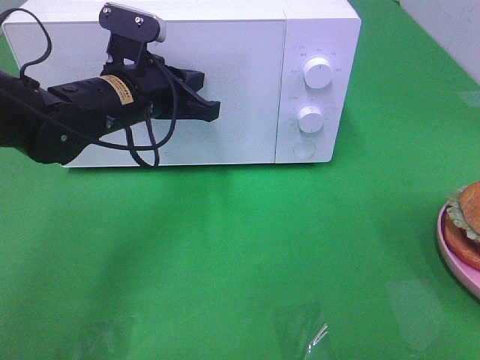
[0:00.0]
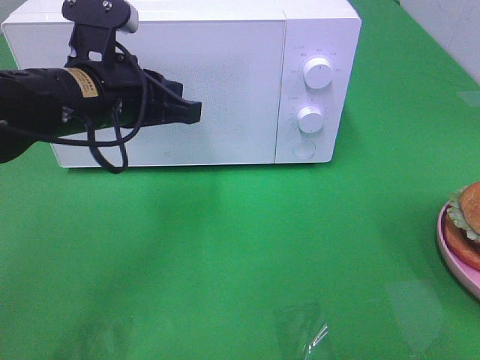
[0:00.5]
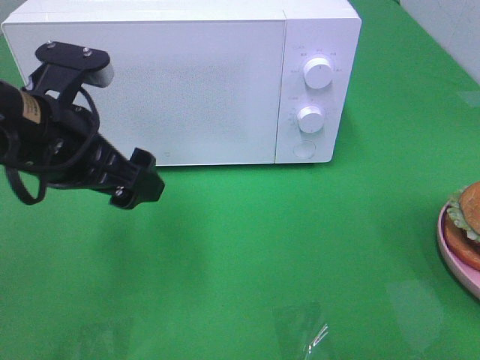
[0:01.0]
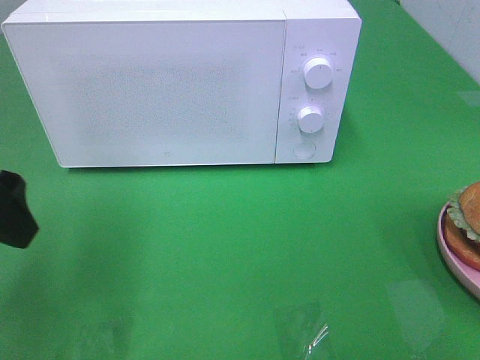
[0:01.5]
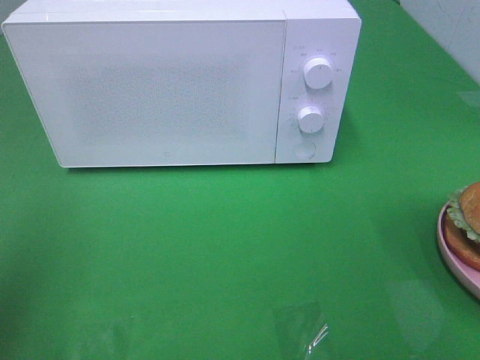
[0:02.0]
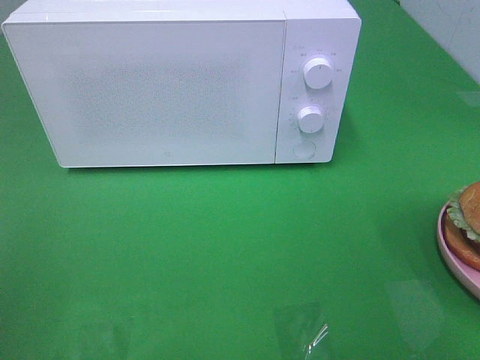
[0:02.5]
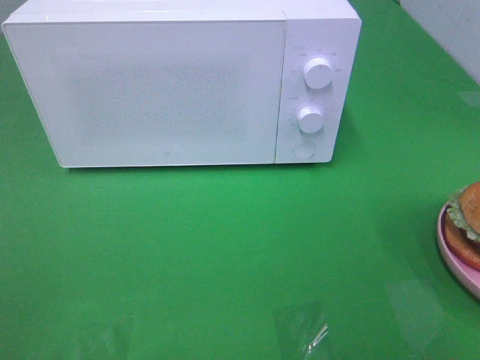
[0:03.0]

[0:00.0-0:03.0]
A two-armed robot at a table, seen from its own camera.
Task of the whole recording: Heat the burger.
0:00.0 to 0:01.5: The left gripper is displaced backward, to the left and upward by approximately 20 cm, and opens up.
0:01.5 to 0:03.0: The left gripper shifts about 20 cm backward and to the left.

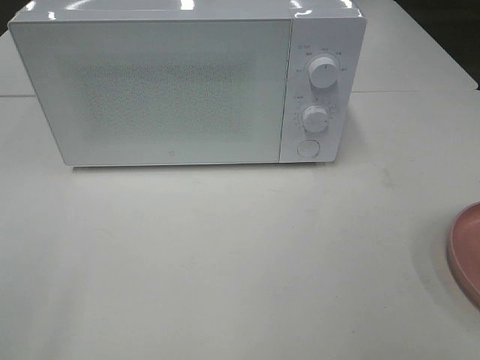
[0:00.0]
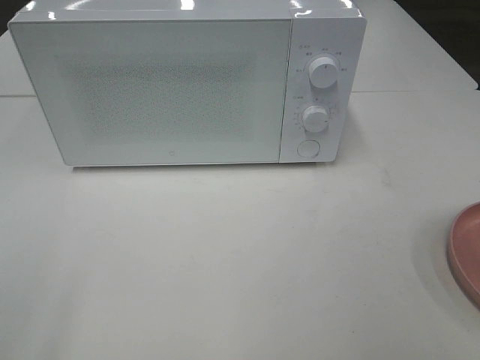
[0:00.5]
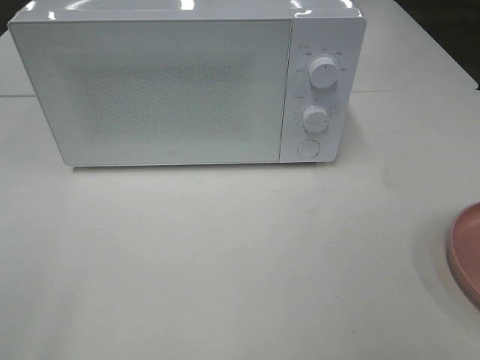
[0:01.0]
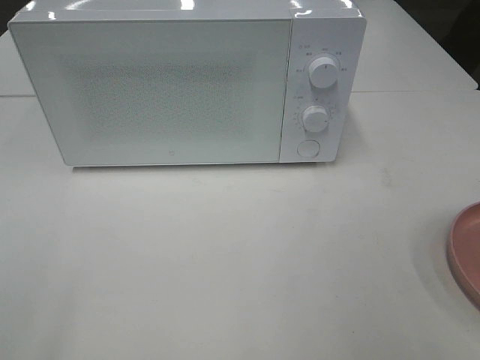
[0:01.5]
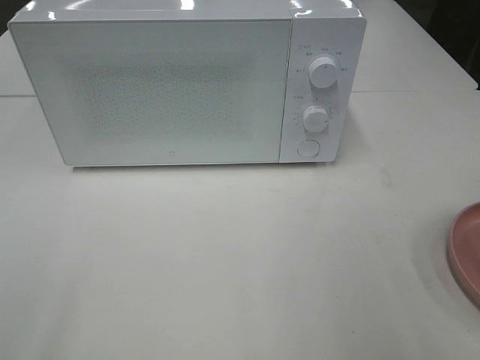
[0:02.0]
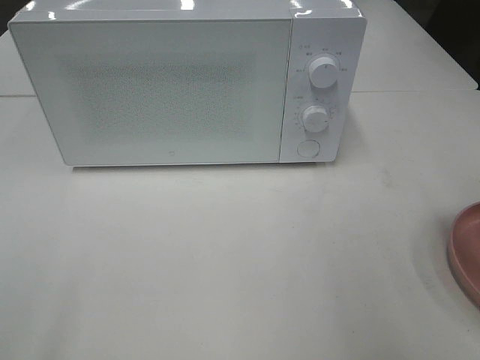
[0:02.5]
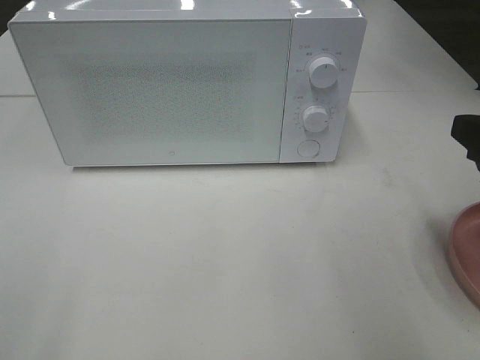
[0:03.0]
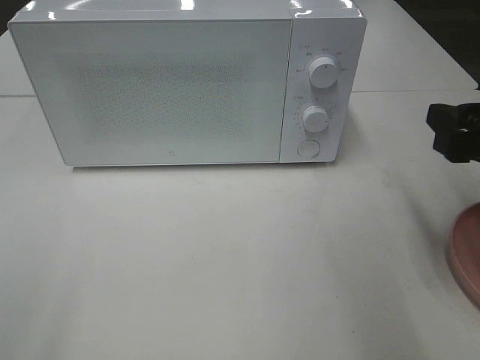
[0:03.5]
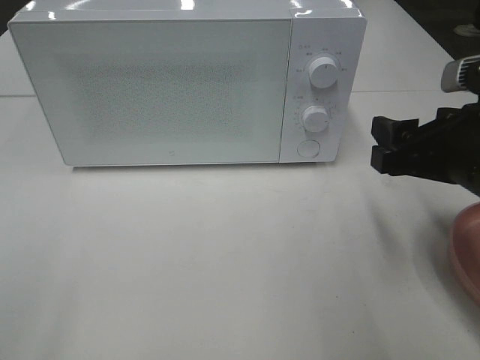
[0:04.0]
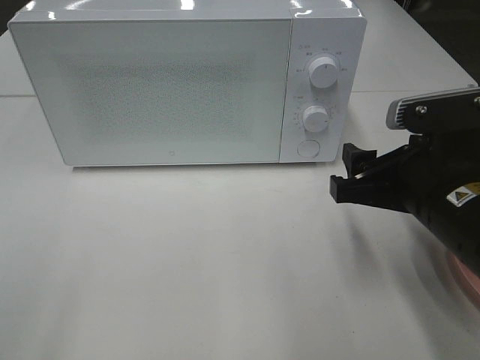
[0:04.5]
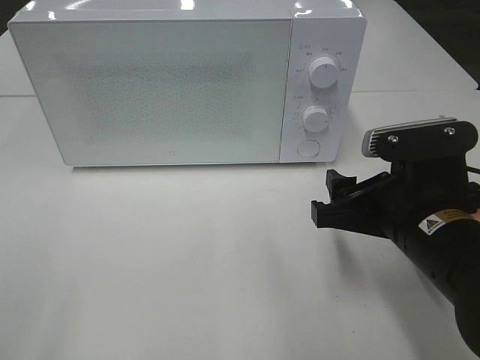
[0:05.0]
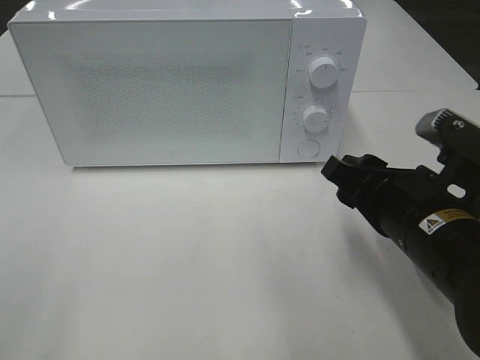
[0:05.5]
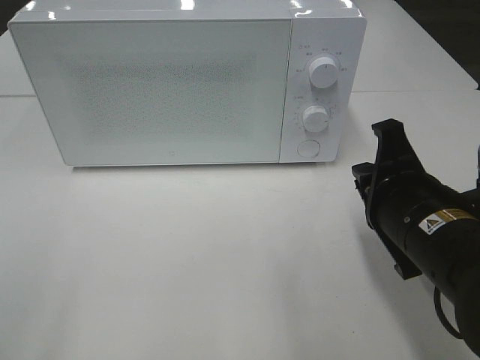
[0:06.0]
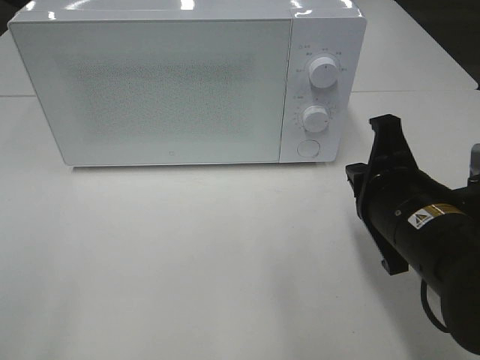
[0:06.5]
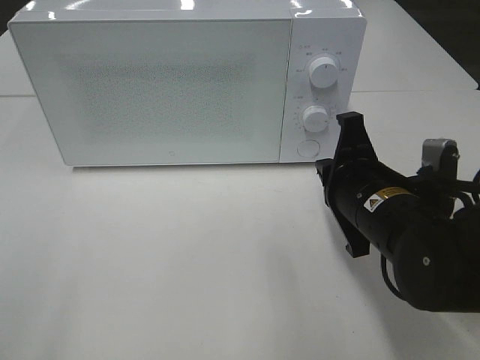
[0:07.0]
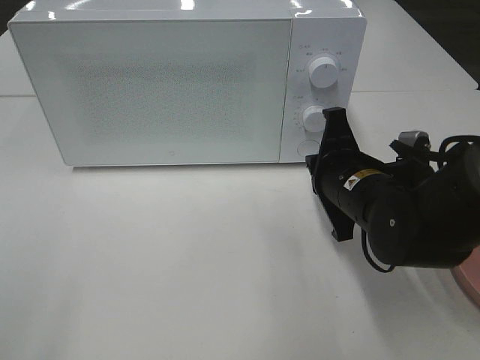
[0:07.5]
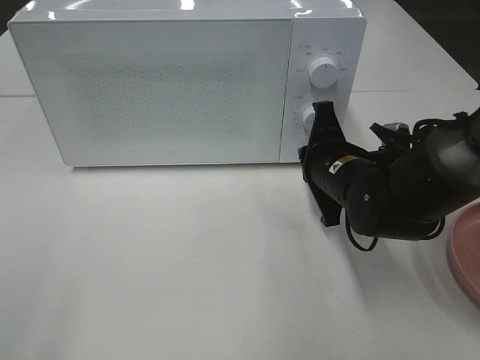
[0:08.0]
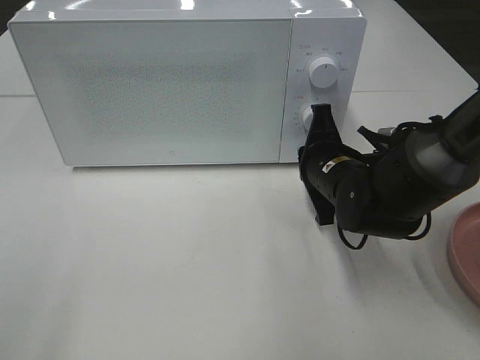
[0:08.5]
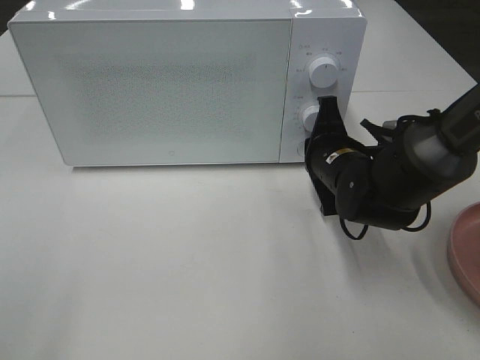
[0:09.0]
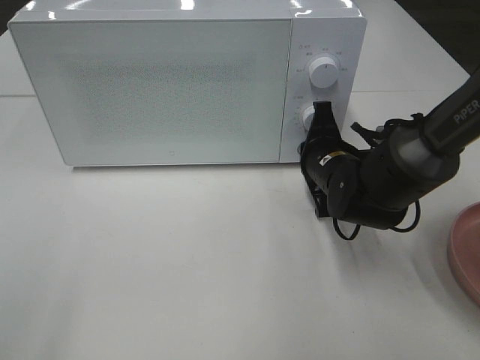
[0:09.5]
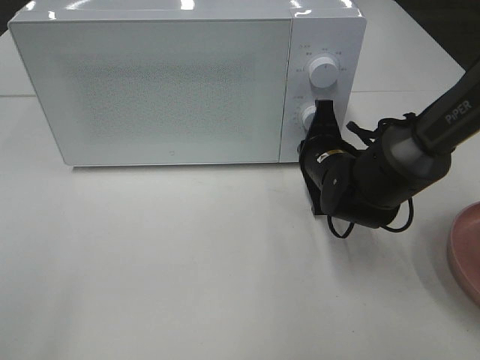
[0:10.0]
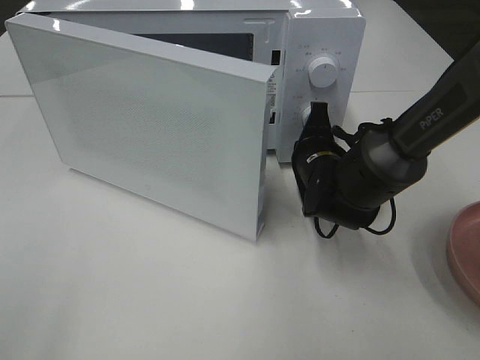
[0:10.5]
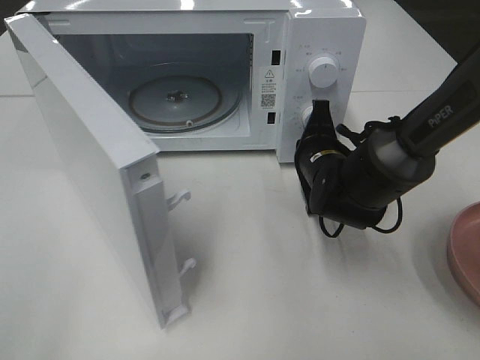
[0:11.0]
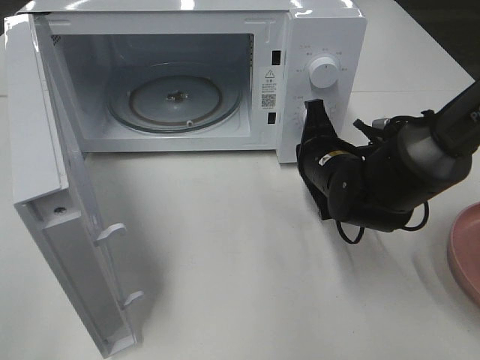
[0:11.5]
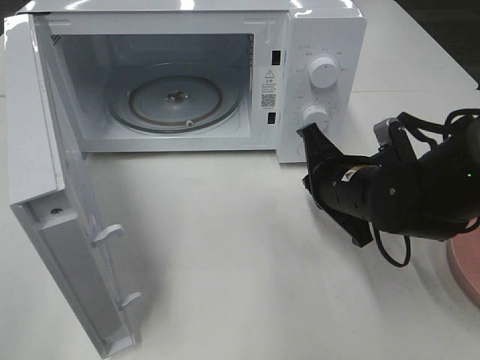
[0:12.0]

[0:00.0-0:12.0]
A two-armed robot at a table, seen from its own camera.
Task of the whole recording: Heat the burger.
Step, 0:00.0 to 0:11.0: Right hand: press the switch.
0:02.0 to 0:04.0: The right gripper shifts roughly 15 cm downward, forward and to the left.
0:04.0 to 0:06.0: The right gripper travels to the left by roughly 5 cm, and closes.
0:06.0 to 0:08.0: The right gripper travels forward and downward by about 15 cm.
0:08.0 to 0:10.0: The grippers move only a little.
0:10.0 to 0:12.0: The right gripper is displaced backward by about 5 cm.

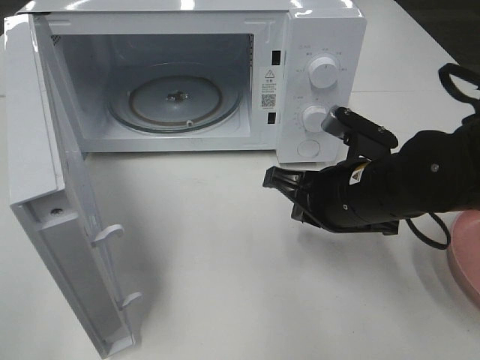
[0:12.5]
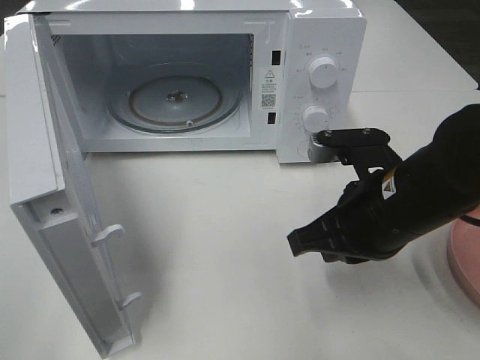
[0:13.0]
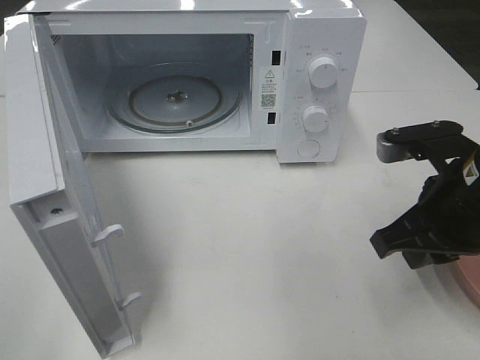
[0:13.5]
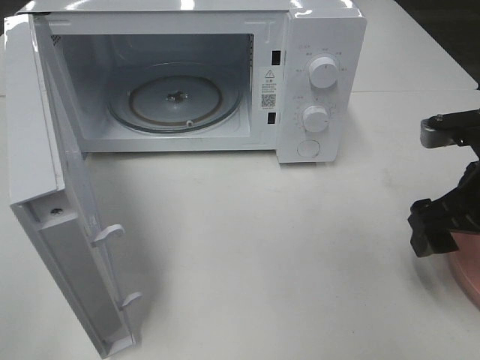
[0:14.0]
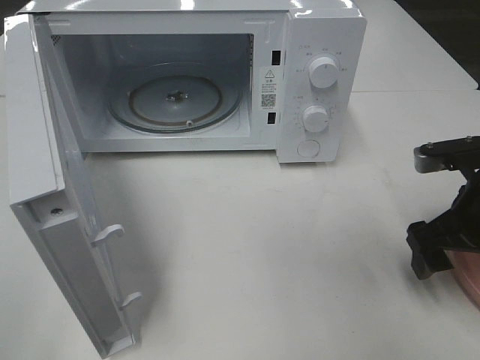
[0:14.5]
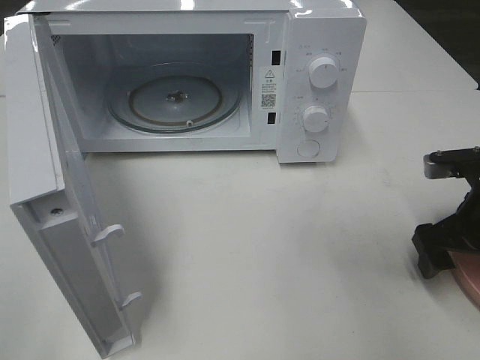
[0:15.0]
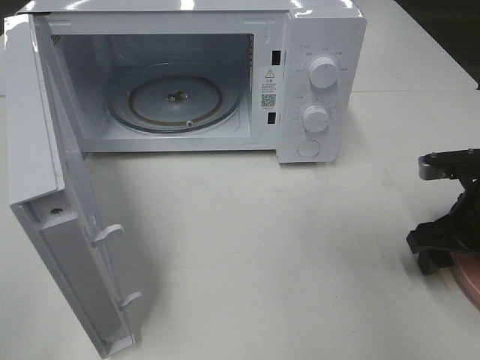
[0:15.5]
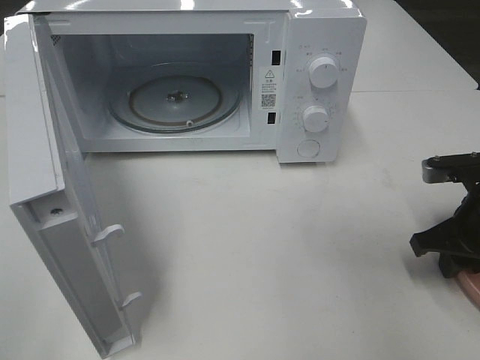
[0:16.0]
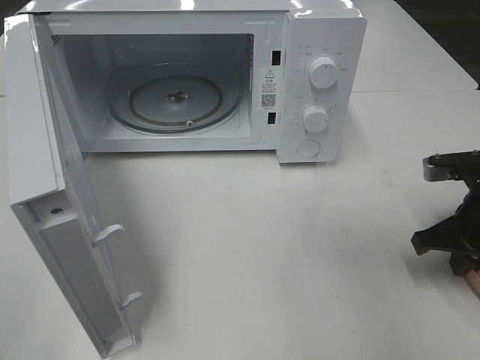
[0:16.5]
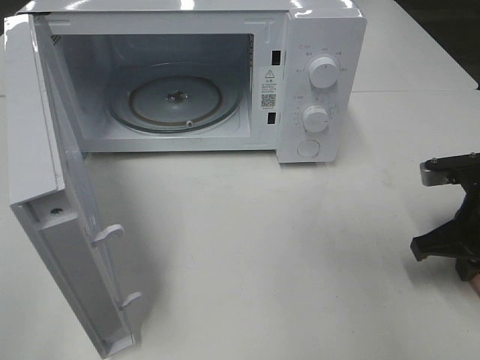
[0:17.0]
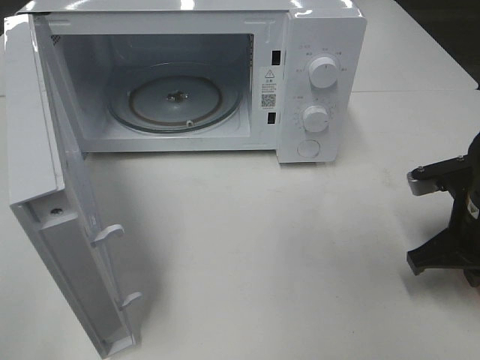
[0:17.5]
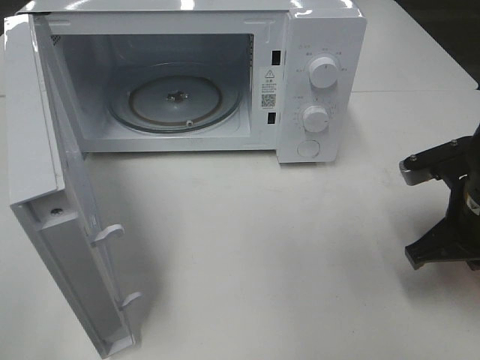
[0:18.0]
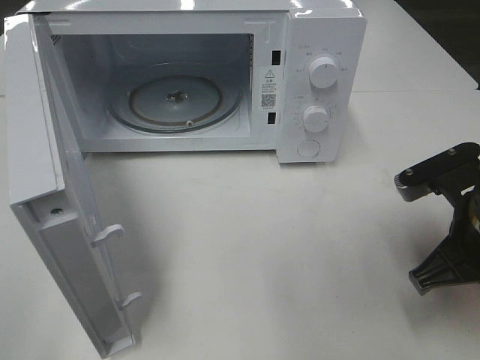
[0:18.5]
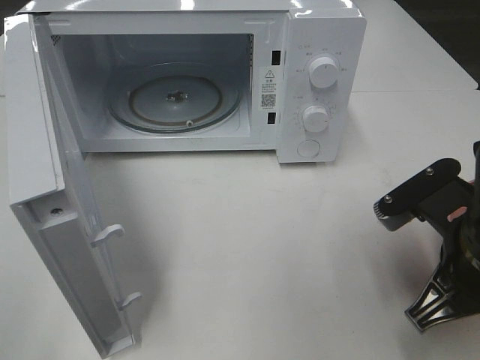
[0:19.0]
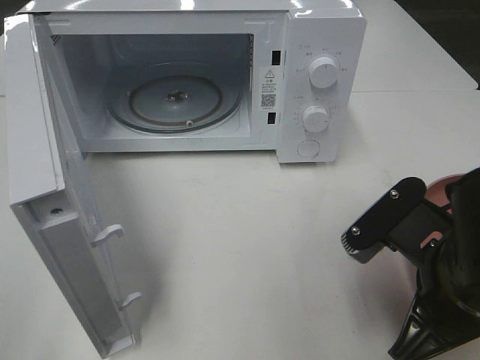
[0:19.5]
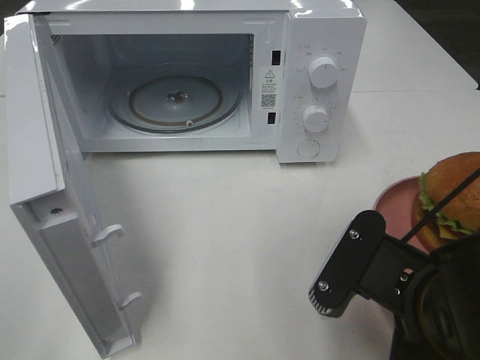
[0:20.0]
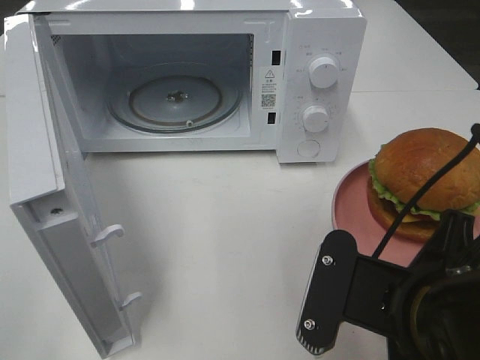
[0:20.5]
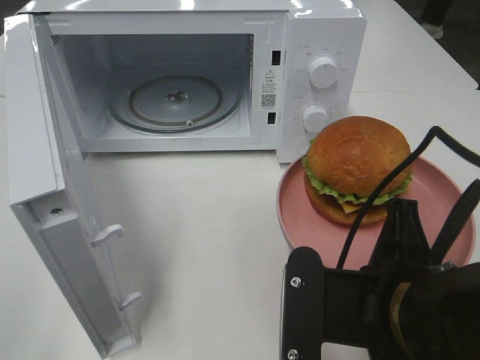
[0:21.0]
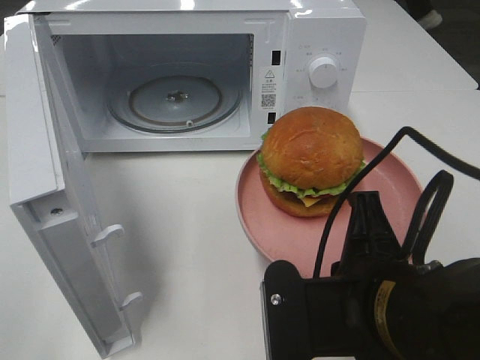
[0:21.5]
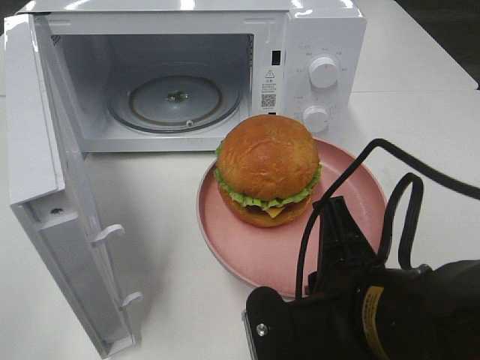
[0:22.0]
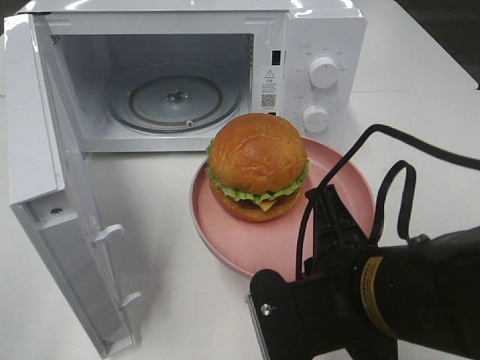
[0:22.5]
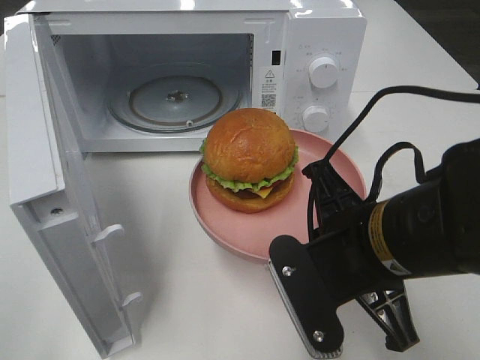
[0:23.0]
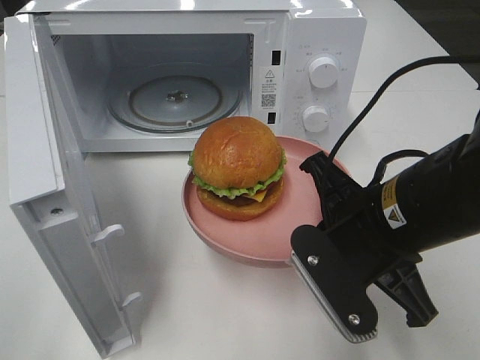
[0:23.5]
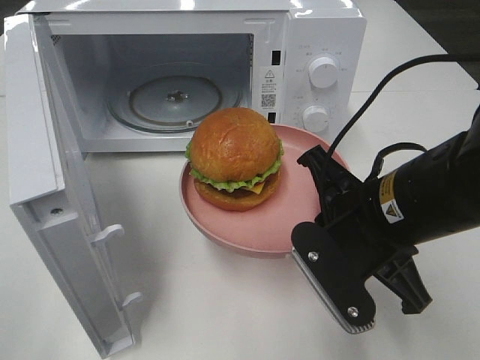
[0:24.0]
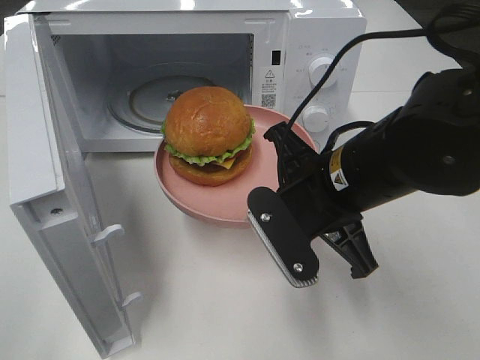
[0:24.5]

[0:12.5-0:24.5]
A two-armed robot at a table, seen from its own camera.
Task of the whole recording: Heat the burger.
Step, 0:12.5 to 0:16.5: Right hand: grab the plate with the hamburger.
0:12.5 to 0:14.5: The right gripper heads to the right, covering roughly 15 cm, and opens its fingers.
0:14.5 to 0:16.5: The right gripper closes its fingers.
0:16.5 to 0:18.5: The right gripper travels to the left and backward by about 10 cm.
0:18.5 to 0:20.5: The right gripper travels backward and to the left by about 15 cm.
0:22.5 to 0:24.5: The right gripper is displaced forward by approximately 10 cm.
